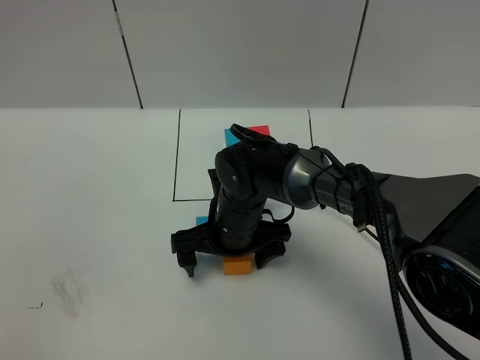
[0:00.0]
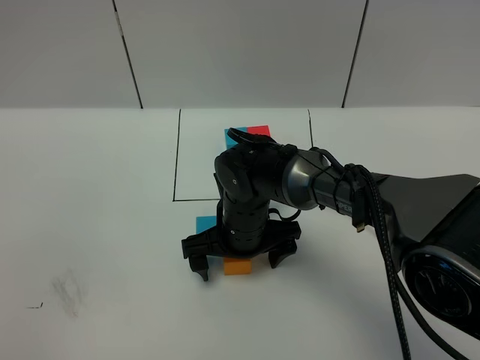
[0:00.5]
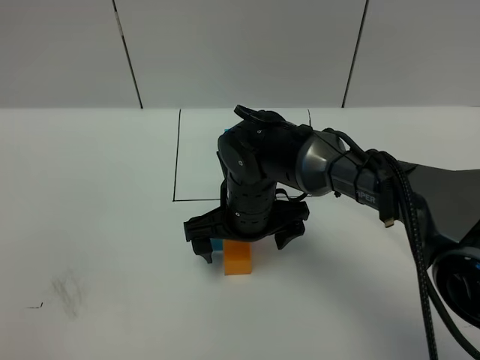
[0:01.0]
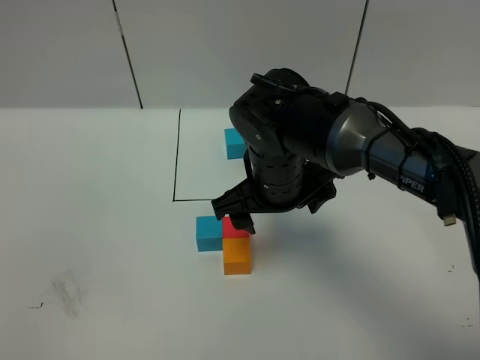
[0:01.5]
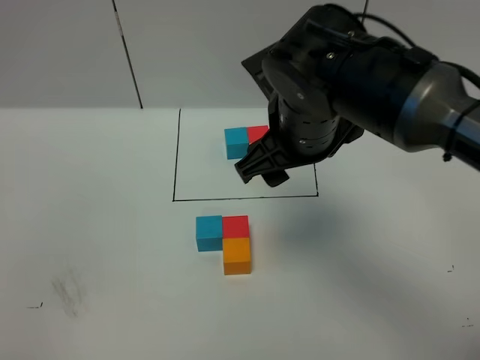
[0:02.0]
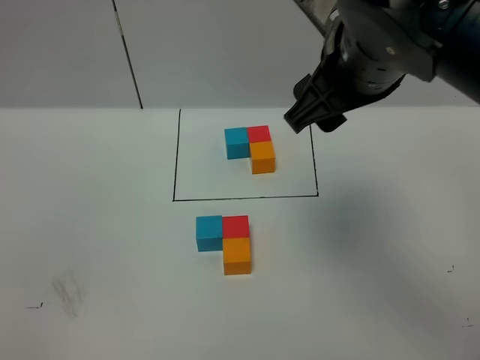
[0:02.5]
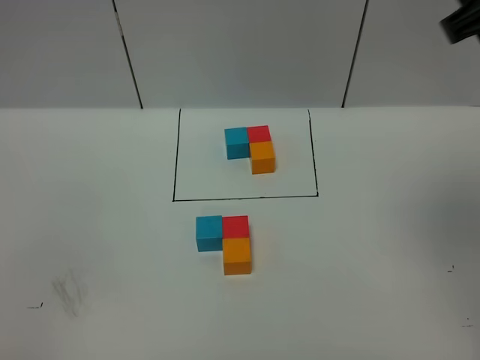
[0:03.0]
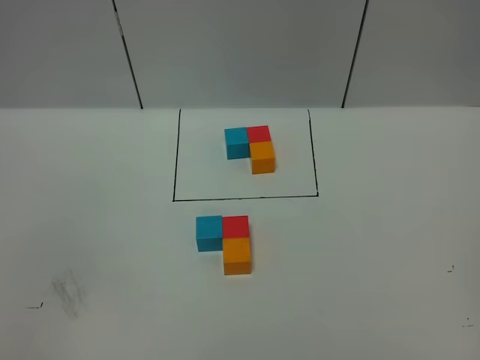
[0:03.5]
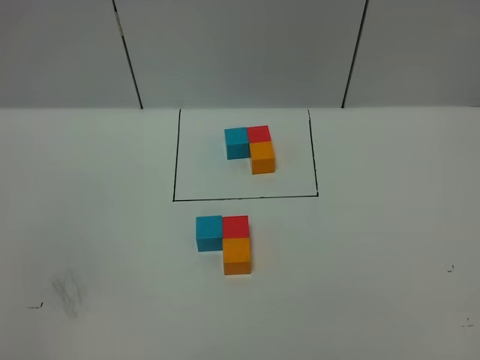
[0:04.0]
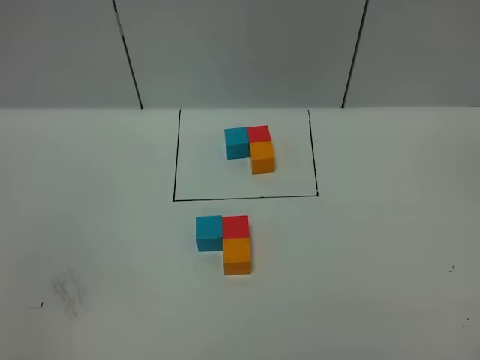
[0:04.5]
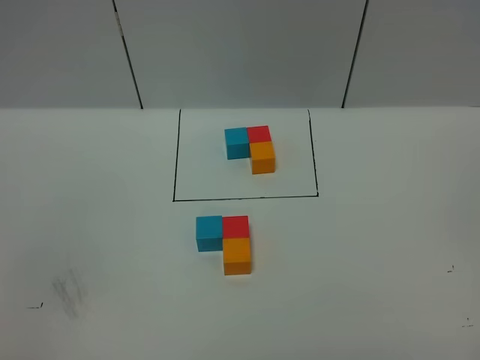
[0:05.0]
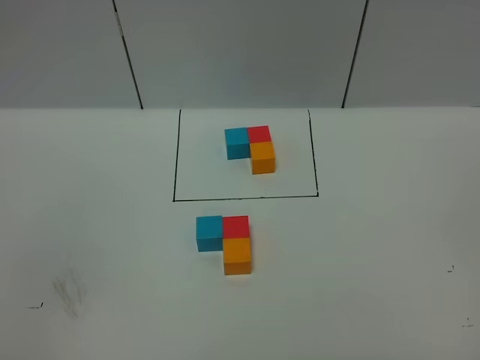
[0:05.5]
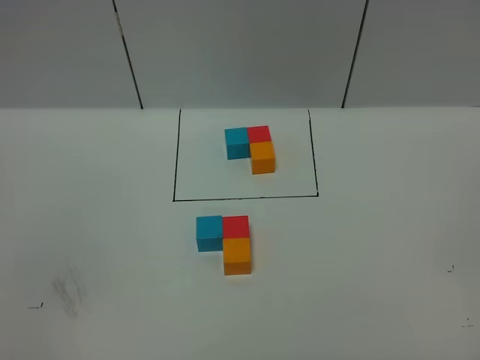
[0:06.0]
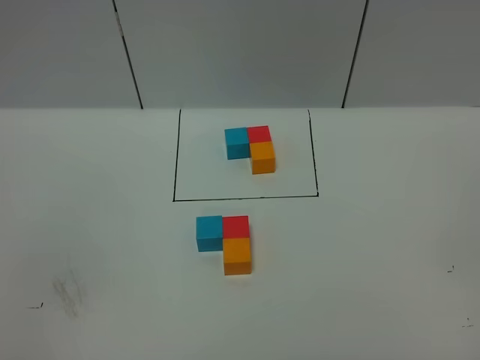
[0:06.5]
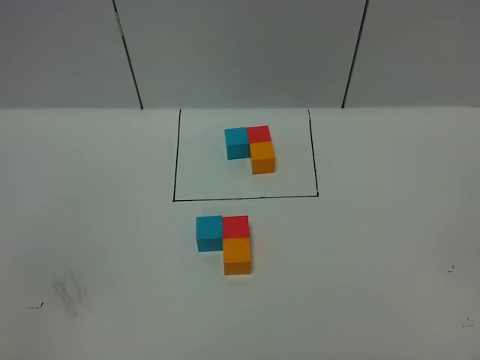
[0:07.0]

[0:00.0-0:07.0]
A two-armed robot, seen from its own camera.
Task of the whole recording: According to the building block template in front, assemble the scattered blocks together.
0:00.0 to 0:02.0: The right gripper shifts some 20 cm upward, and closes up.
0:02.0 to 0:03.5: The right gripper heads to the right, upward and backward, covering approximately 35 cm.

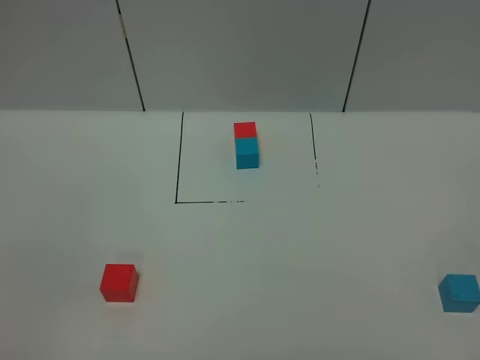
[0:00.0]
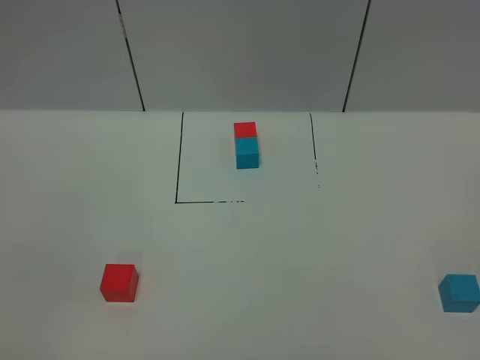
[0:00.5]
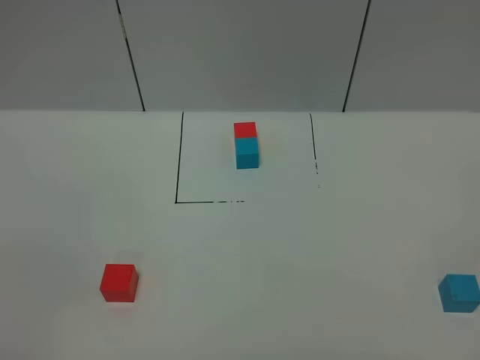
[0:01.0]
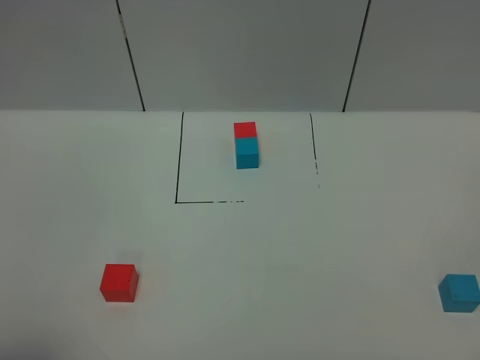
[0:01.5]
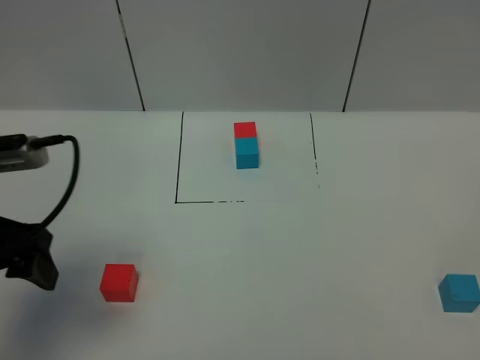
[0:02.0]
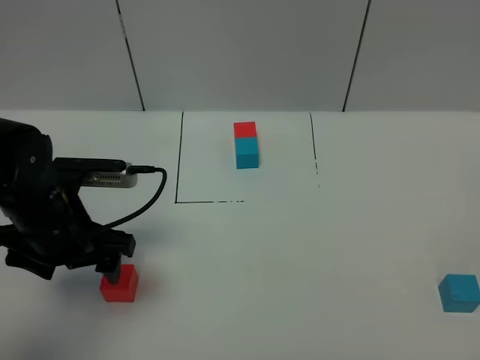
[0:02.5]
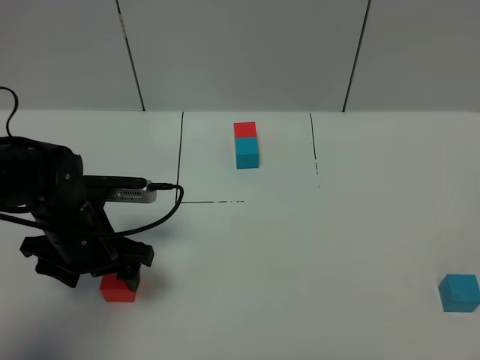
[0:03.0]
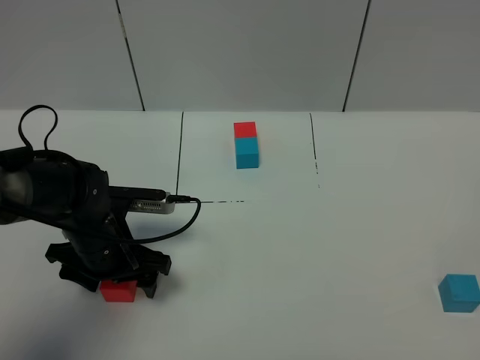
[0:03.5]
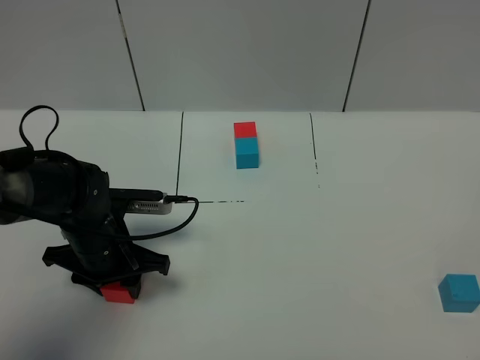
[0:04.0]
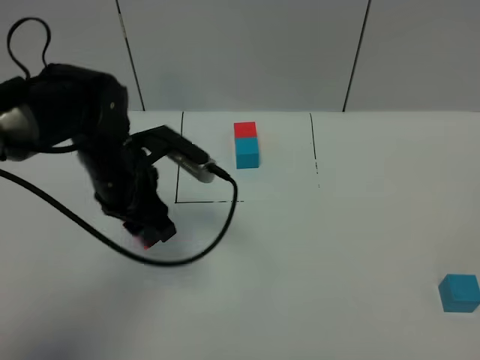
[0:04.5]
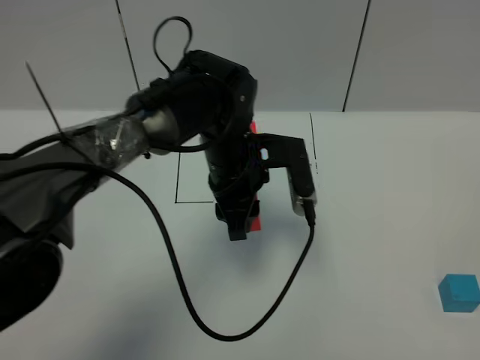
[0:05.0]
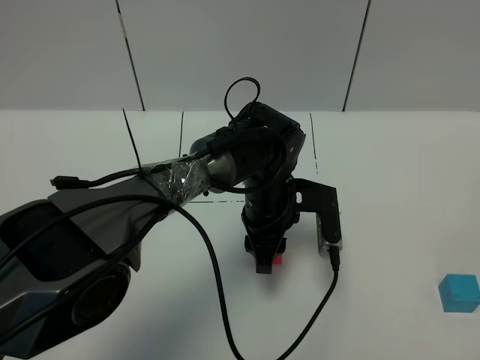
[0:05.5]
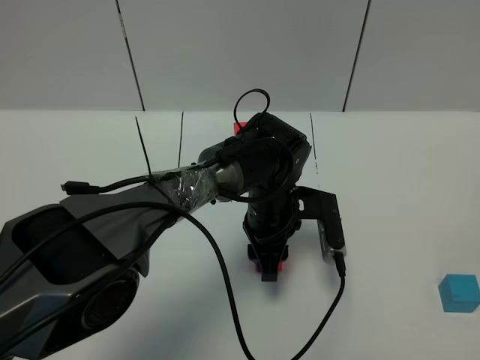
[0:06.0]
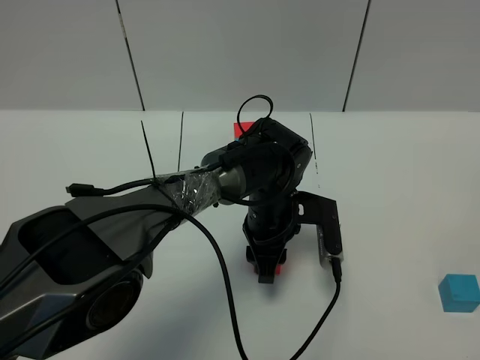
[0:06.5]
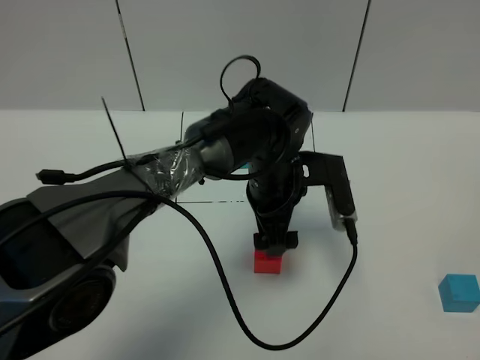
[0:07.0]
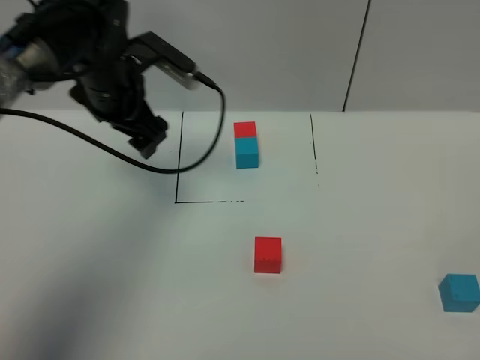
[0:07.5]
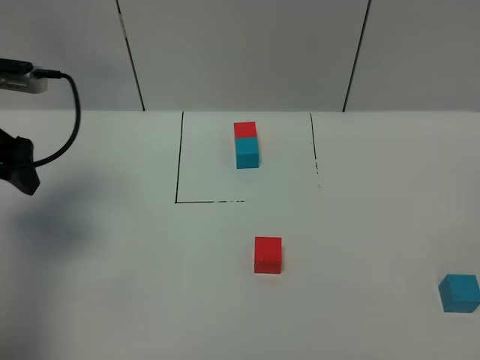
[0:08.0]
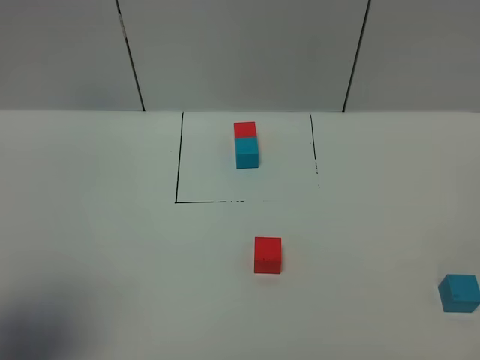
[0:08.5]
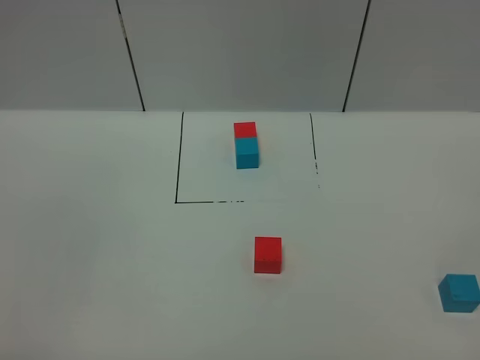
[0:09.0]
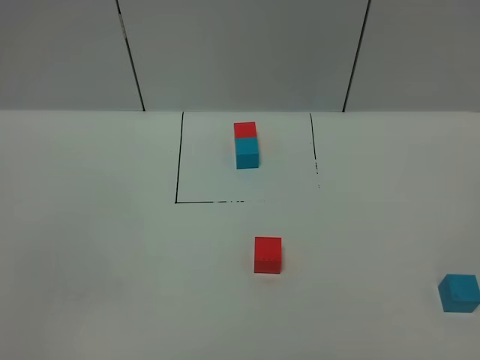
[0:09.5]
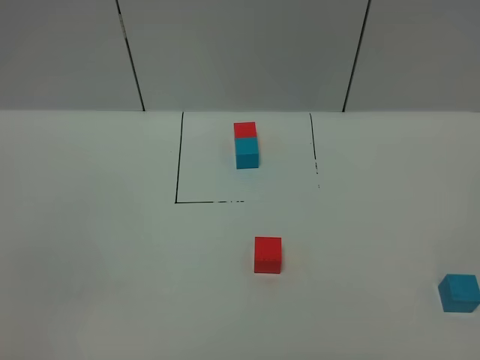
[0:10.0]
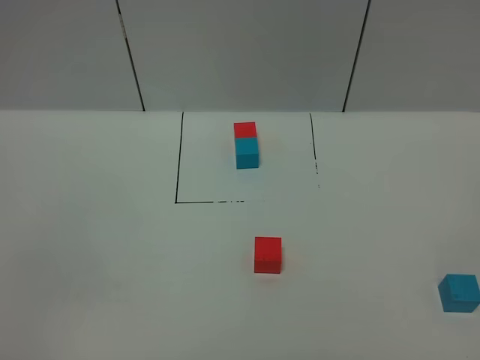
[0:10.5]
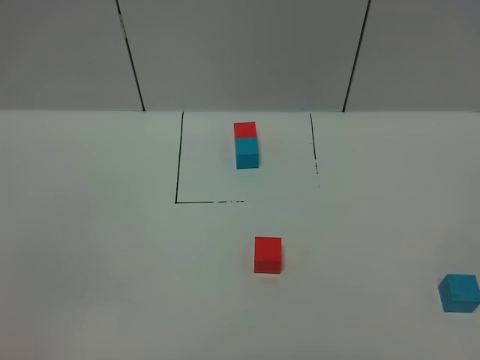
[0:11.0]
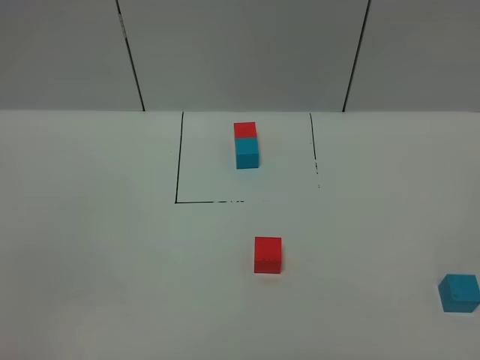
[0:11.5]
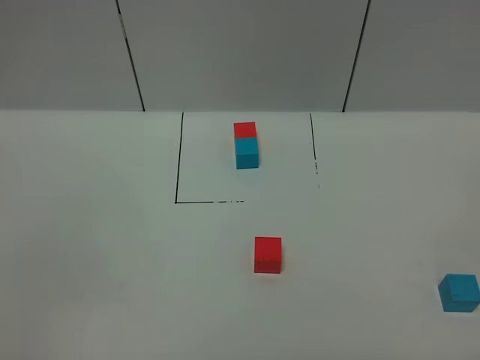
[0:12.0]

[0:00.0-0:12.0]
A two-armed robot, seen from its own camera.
Task of the whole recording: According to the building block template in front, assemble the scattered blocks together.
Step, 0:02.0 to 0:07.0: Put the red cube in the center of the table.
0:00.0 to 0:02.0: The left gripper moves forward, about 25 cm.
0:02.0 to 0:04.0: The left gripper shifts some 20 cm downward, forward and to the right, and closes its fingers.
0:04.0 to 0:06.0: The left gripper travels to the right by about 20 cm.
0:06.0 to 0:08.0: The left gripper moves to the left and upward, some 40 cm, and opens.
0:08.0 to 0:10.0: The left gripper is displaced backward by some 35 cm.

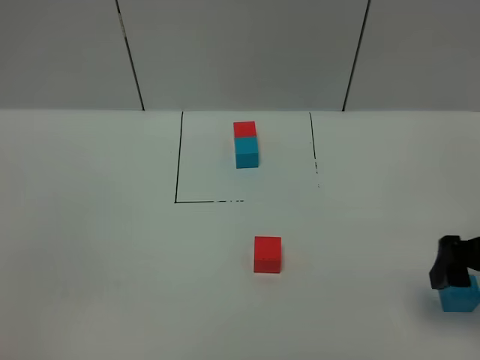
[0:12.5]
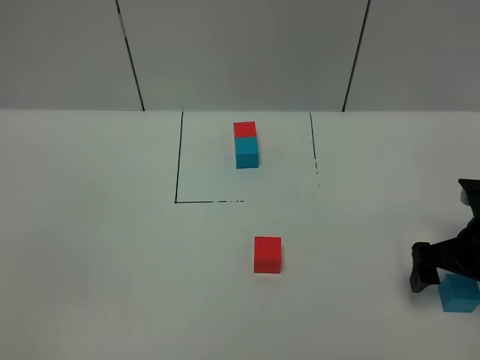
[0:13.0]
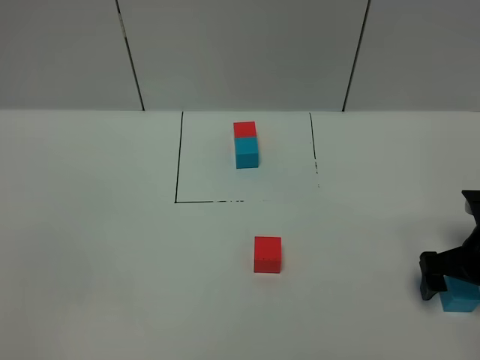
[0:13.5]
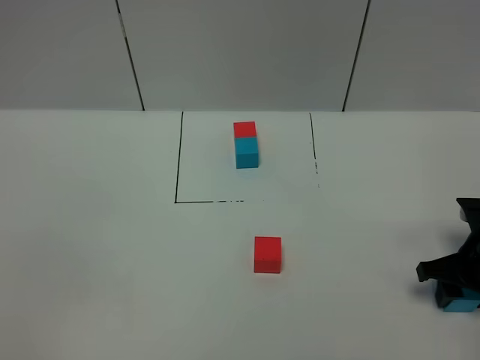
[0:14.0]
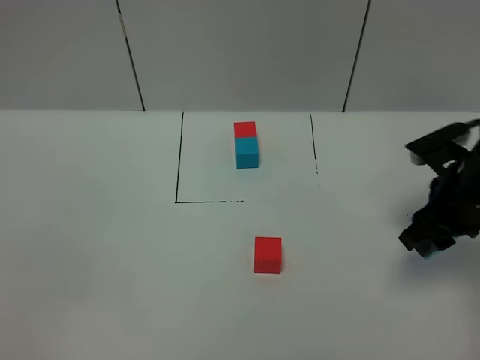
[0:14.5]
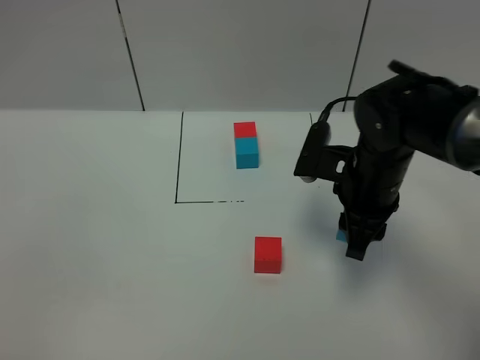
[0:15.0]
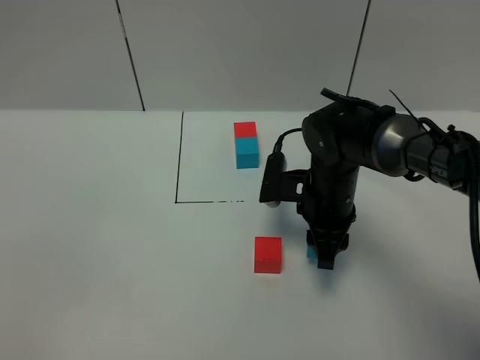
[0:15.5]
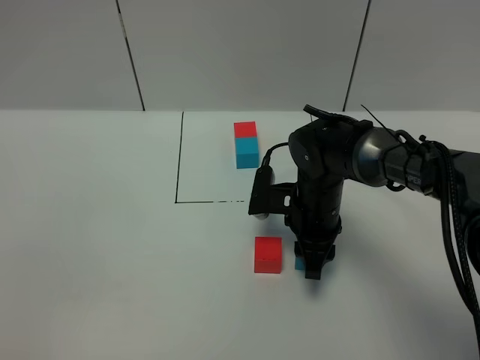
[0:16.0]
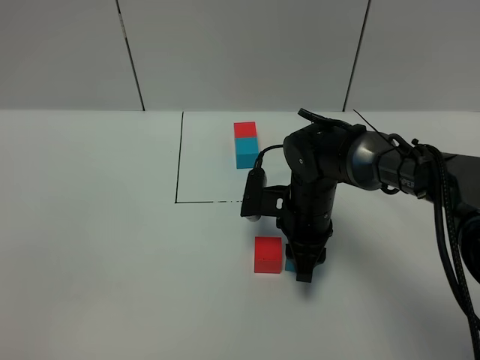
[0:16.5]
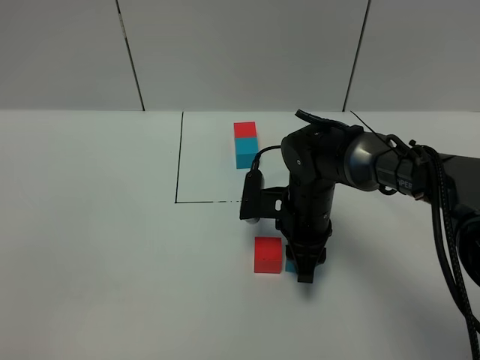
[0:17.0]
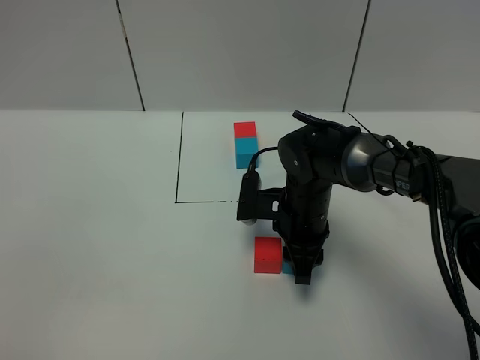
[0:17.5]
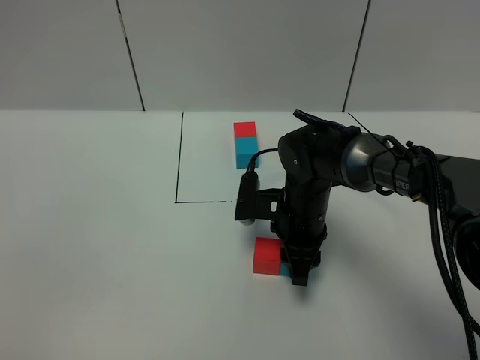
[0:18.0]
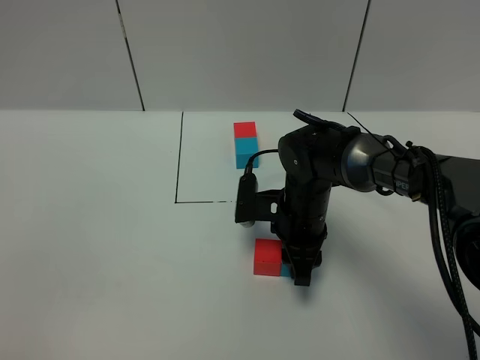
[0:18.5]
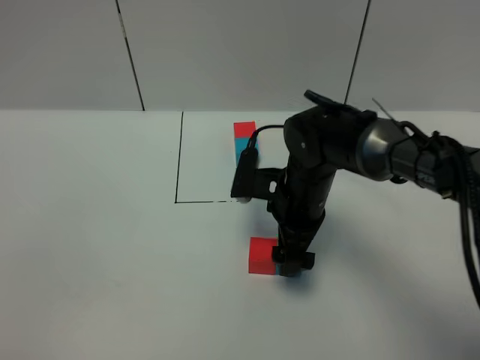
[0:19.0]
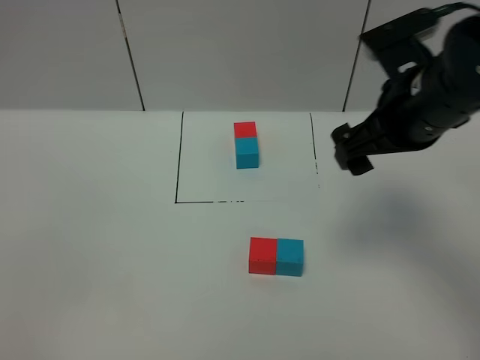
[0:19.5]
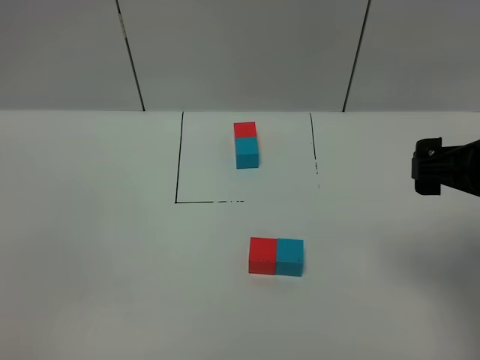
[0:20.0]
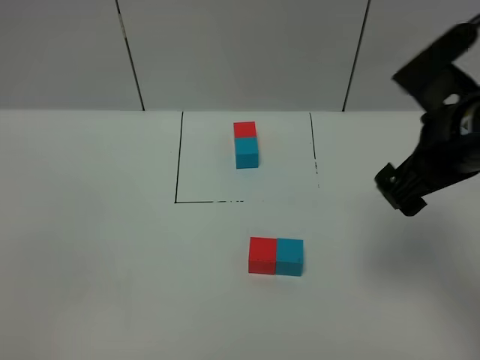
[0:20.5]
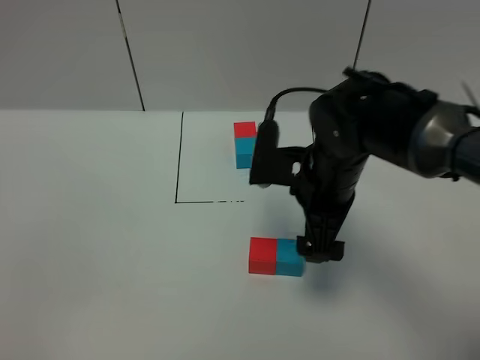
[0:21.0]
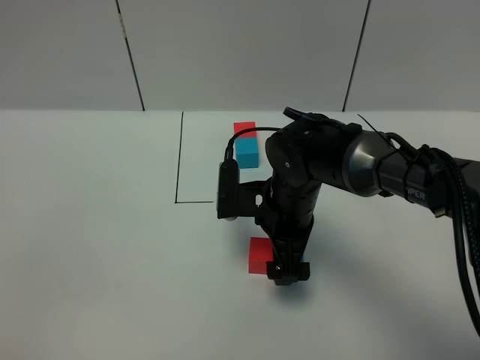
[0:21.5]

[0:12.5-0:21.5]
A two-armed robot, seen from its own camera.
Task of the whole recording: According to the building block template in front, assemble the scattered blocks together.
Step, 0:12.5 to 0:19.0: Put the blue cube on the right of the red cube.
0:12.5 to 0:14.5: The right gripper goes about 10 cm forward, goes downward and returns, some 10 cm each way, and closes up.
0:14.5 to 0:17.0: The right gripper is displaced to the left and downward by approximately 20 cm.
0:17.0 to 0:19.5: The right gripper shifts roughly 25 cm upward and to the right, and opens its fingers.
0:19.5 to 0:21.5: The right gripper shifts roughly 20 cm downward and to the left.
